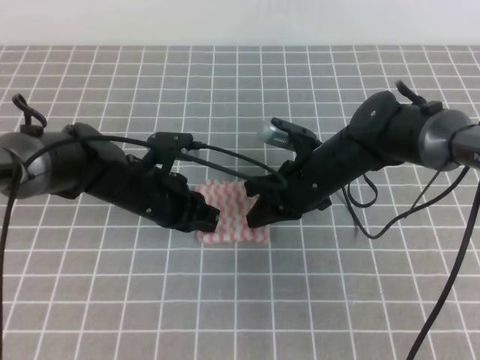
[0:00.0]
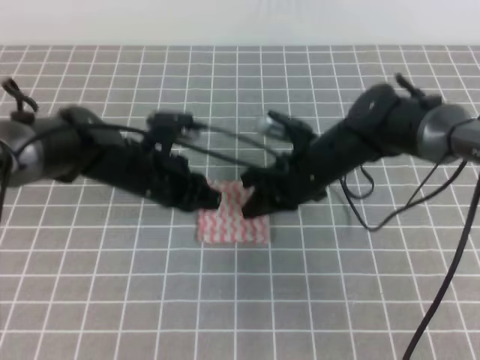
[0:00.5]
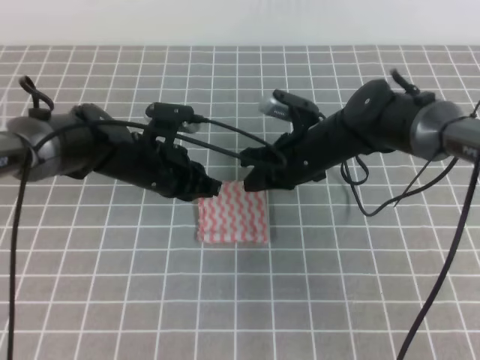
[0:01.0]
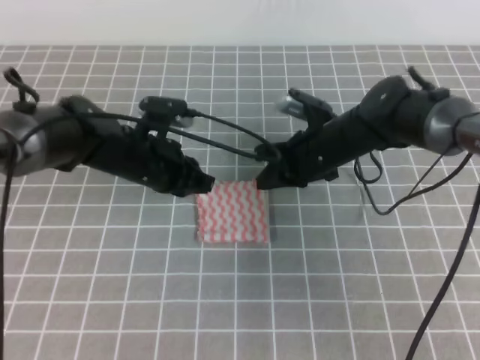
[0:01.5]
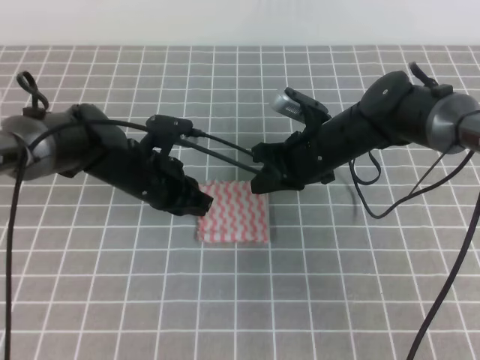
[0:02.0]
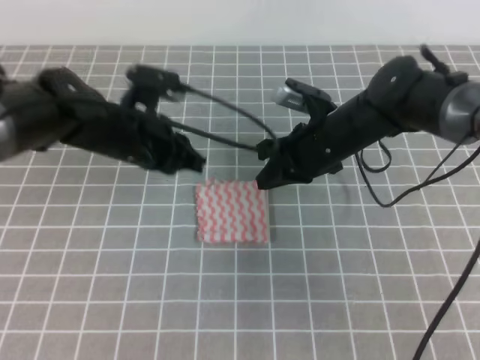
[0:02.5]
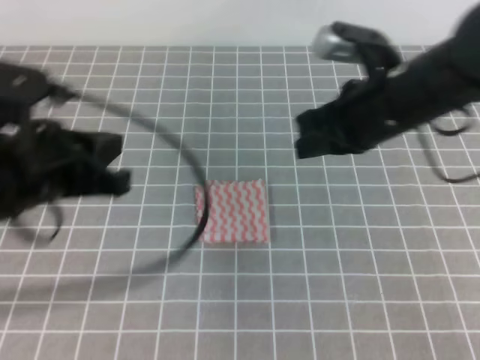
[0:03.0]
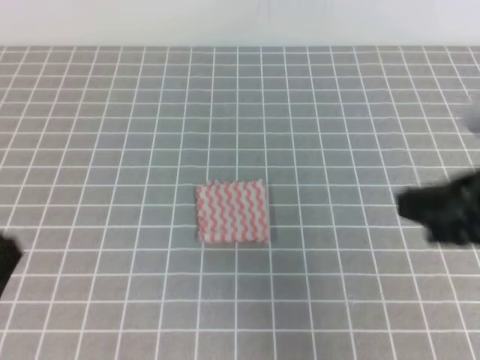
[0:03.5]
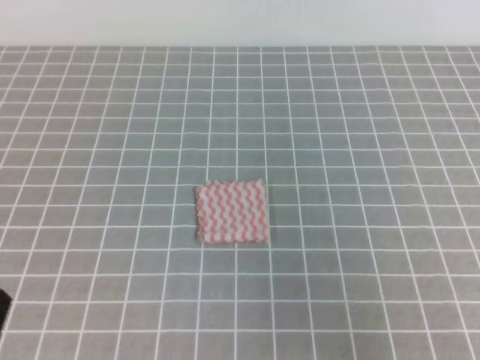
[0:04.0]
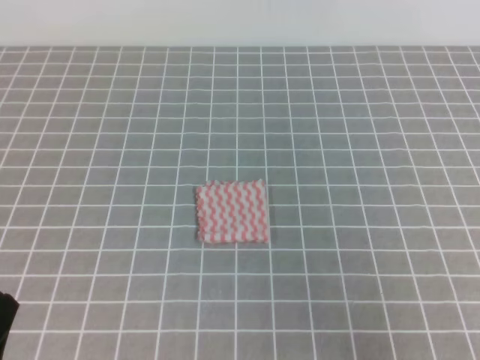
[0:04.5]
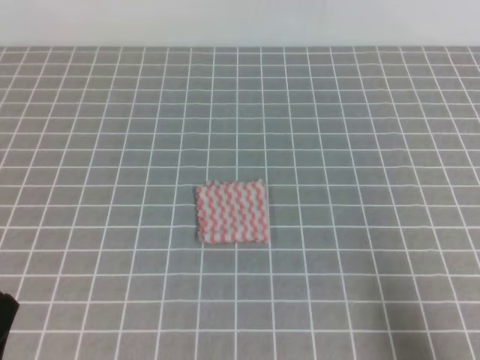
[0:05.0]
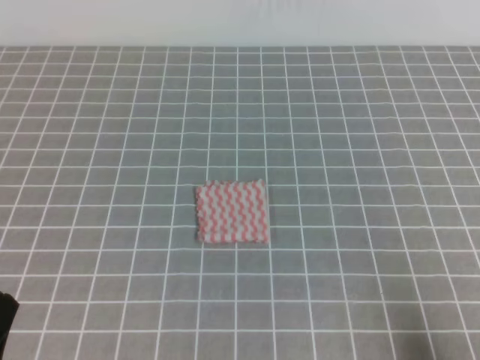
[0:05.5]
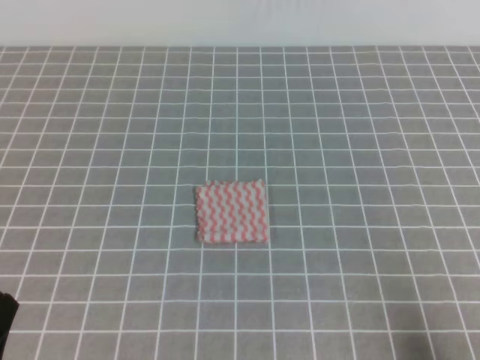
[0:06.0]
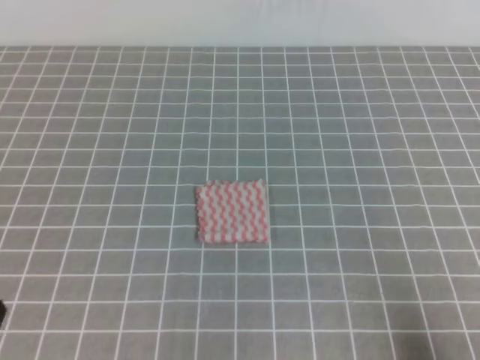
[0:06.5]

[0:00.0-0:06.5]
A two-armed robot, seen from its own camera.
Step, 0:00.0 to 0:06.5: Fold the towel.
0:02.0 to 0:04.5: The right gripper goes about 35 cm backward and to the right. The left gripper moves backward and to the left, some 35 cm.
0:04.5 to 0:06.5: The right gripper shifts about 10 cm downward.
